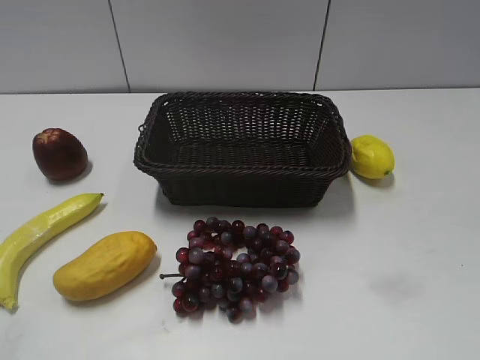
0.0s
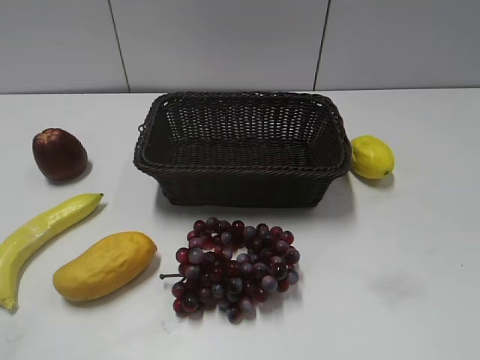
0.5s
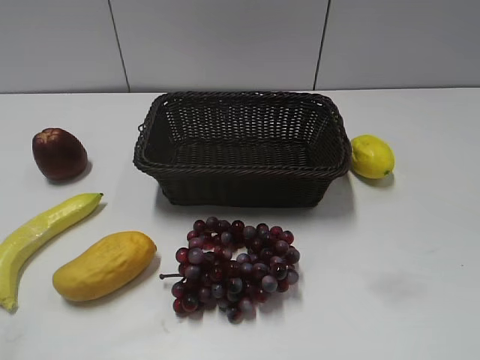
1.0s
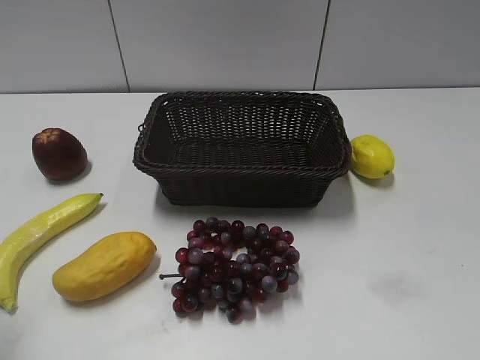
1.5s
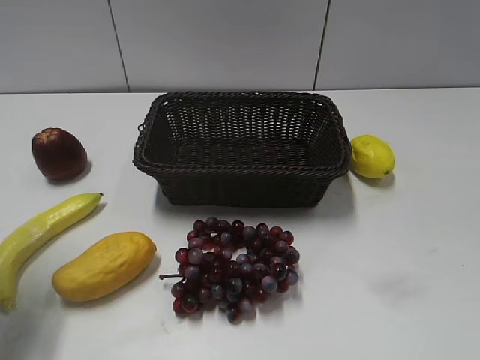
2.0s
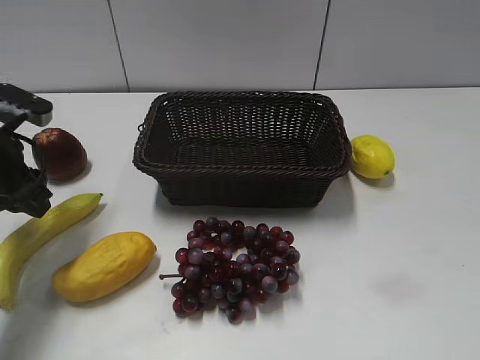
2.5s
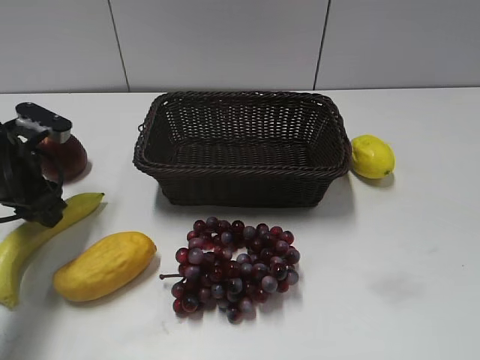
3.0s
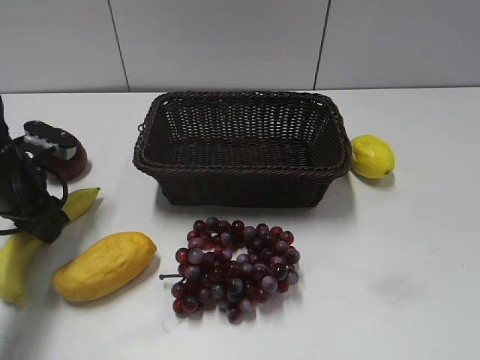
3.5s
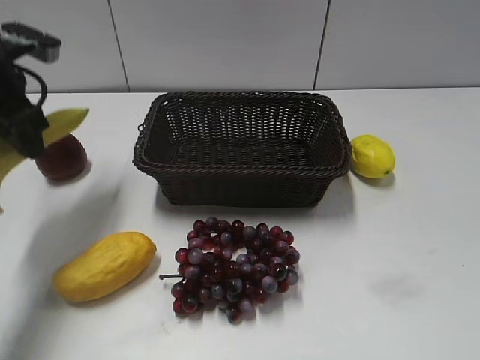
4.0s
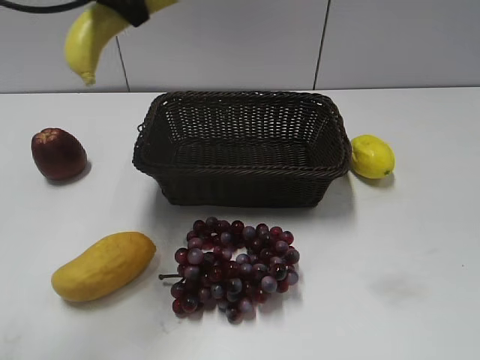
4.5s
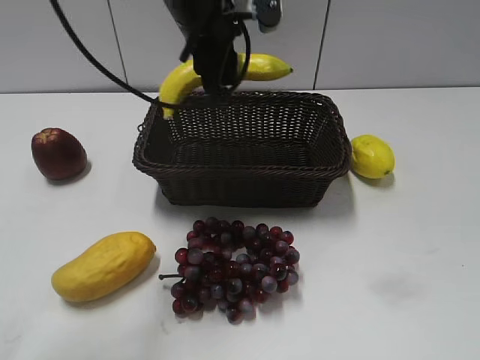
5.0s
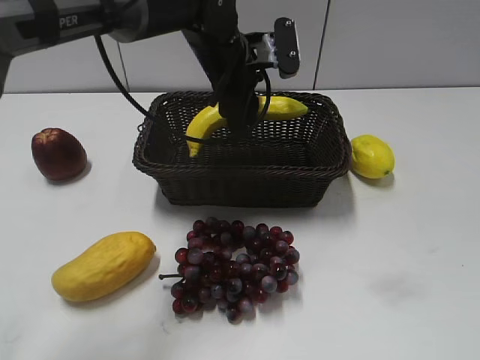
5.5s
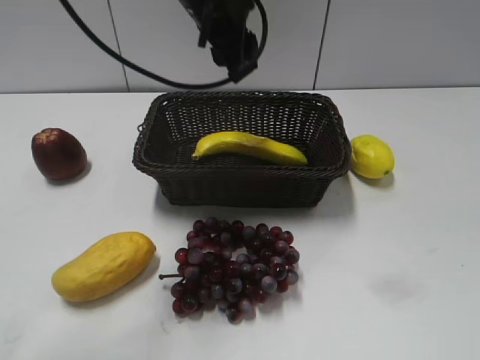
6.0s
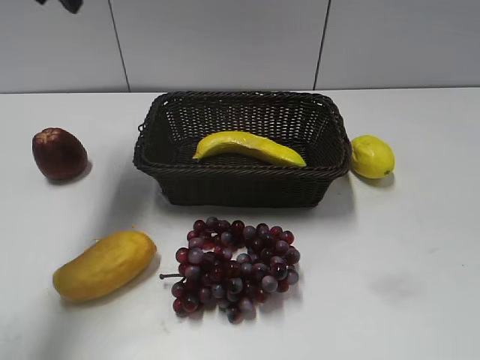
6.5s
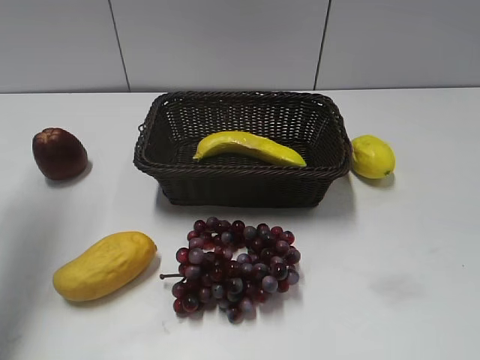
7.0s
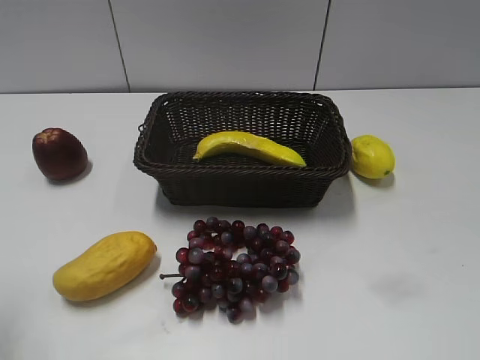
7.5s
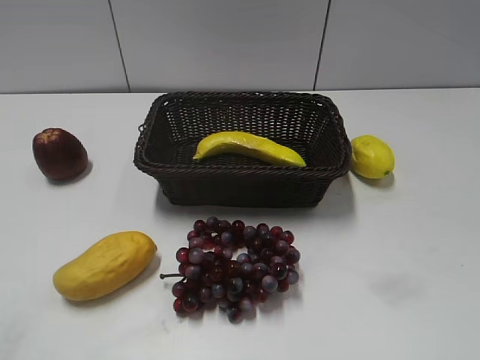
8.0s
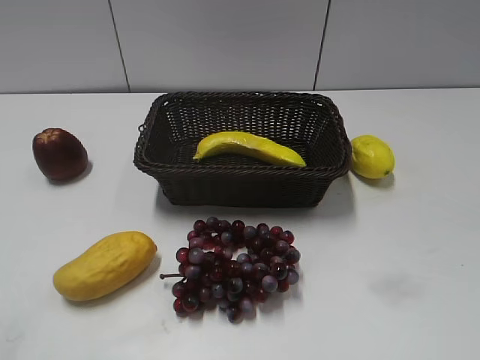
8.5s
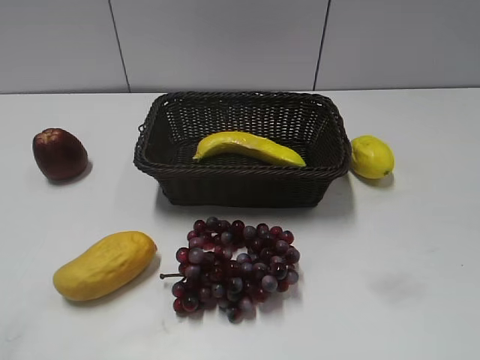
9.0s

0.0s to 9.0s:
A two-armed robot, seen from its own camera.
Step, 2.5s to 3.0s: Grasp the banana with left gripper.
Step, 3.5s to 5.5s: Place the banana in the basket with left gripper.
2.0s to 4.5s: The left gripper travels to the right, forward and upward by roughly 25 cm, and closes its fingers.
4.5s to 7.0s: The left gripper travels to the left by about 20 cm, and opens.
7.0s to 9.0s: The left gripper shifts approximately 35 cm backward.

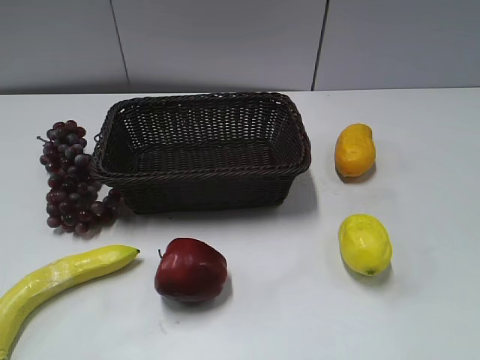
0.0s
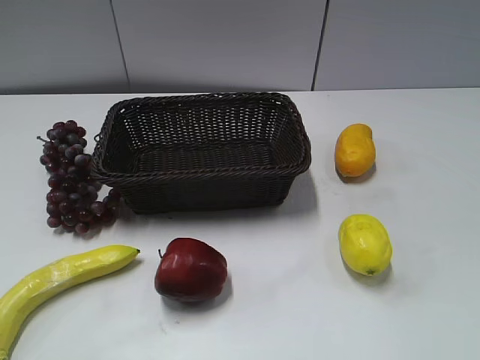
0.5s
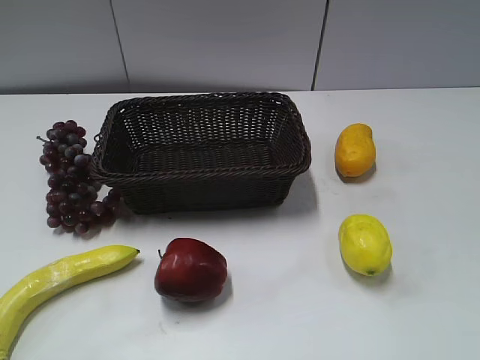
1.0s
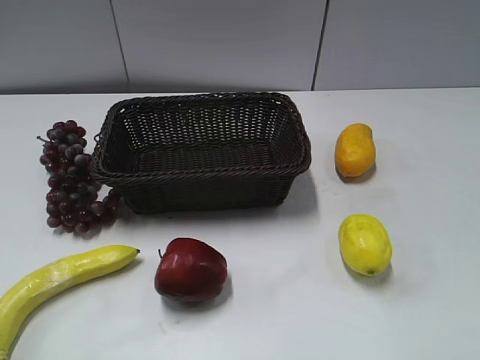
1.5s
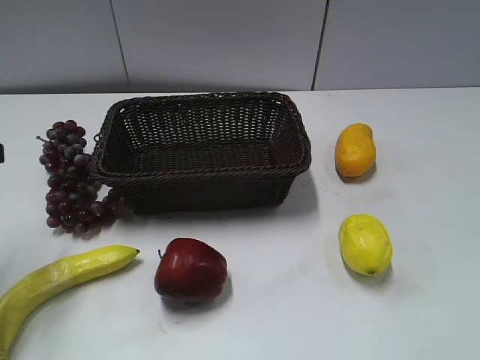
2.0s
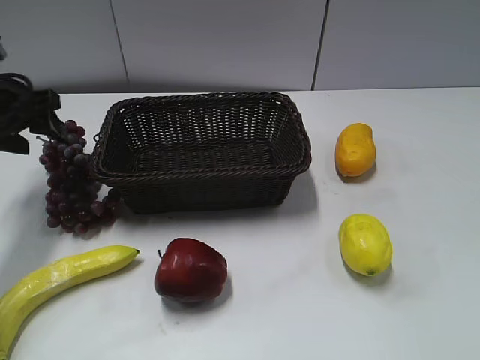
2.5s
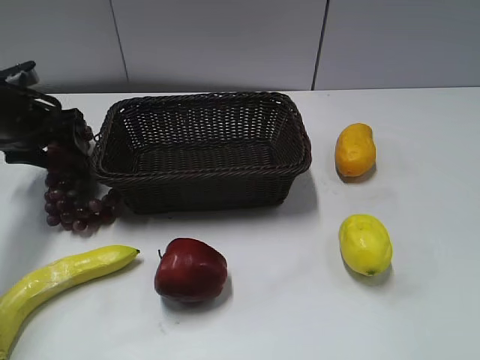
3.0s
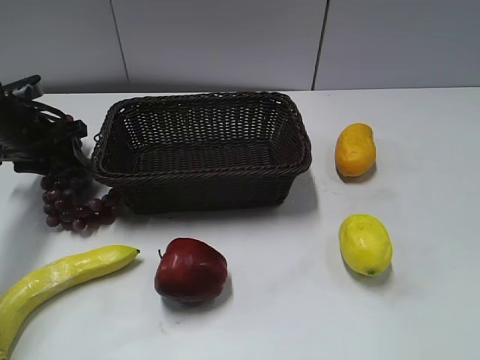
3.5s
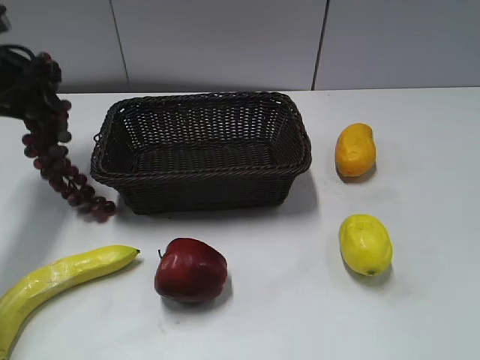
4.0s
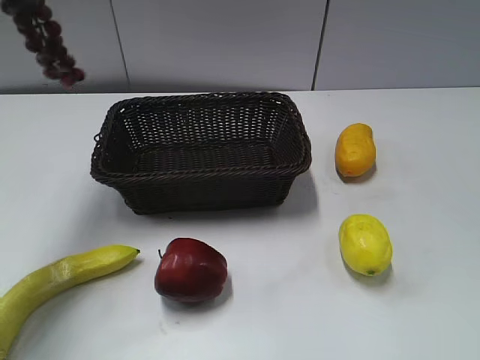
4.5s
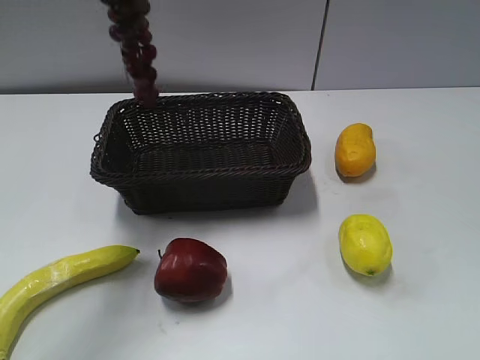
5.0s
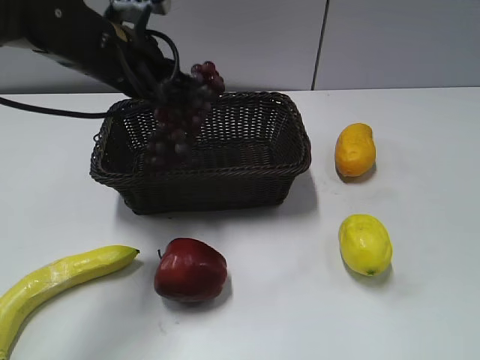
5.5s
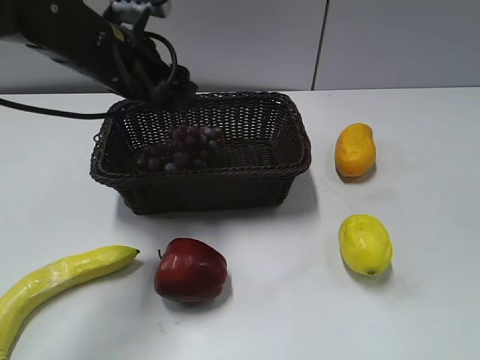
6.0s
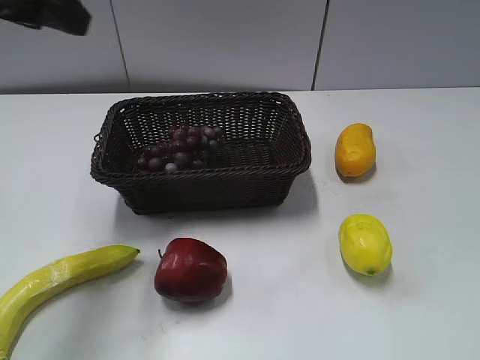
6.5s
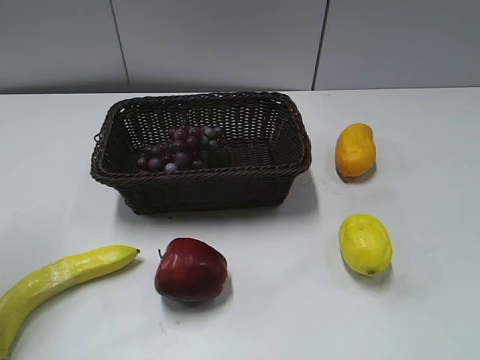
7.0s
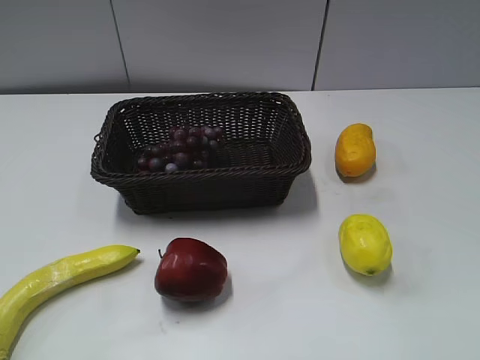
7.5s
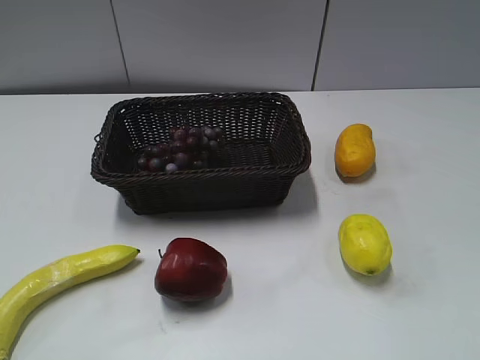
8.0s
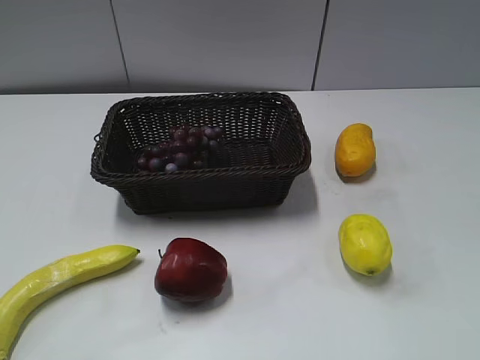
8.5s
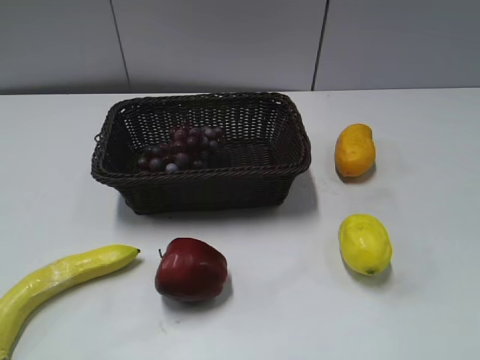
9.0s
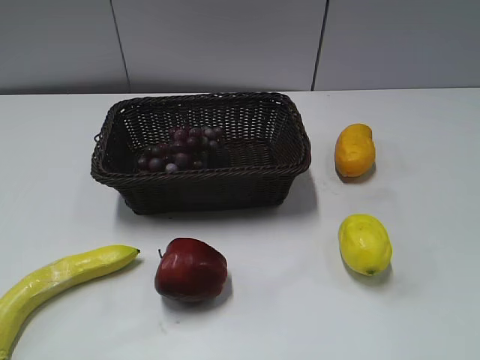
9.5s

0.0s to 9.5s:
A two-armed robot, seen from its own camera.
Step, 2.0s to 3.5s: Grasp the grape with left gripper.
Step, 4.0s to 6.0s: Place the grape in the basket with left gripper.
2.0s to 4.0s: The left gripper is displaced forward by some 15 cm, and closes its fingers.
4.0s to 5.5s: The left gripper heads to the right, covering roughly 15 cm, reaches some 20 cm upward, then returns, and closes up.
5.5s to 7.5s: The left gripper travels backward and to the left by roughly 35 cm, and opens.

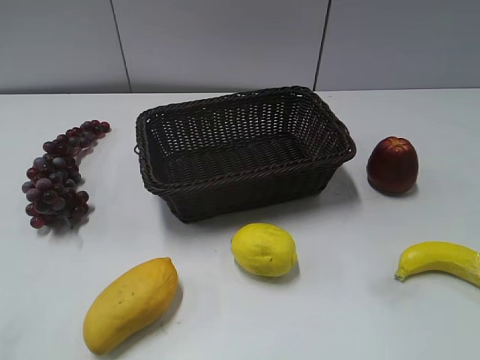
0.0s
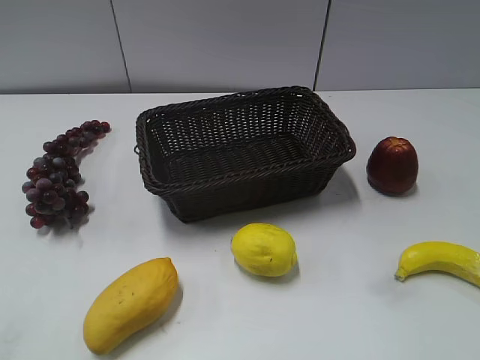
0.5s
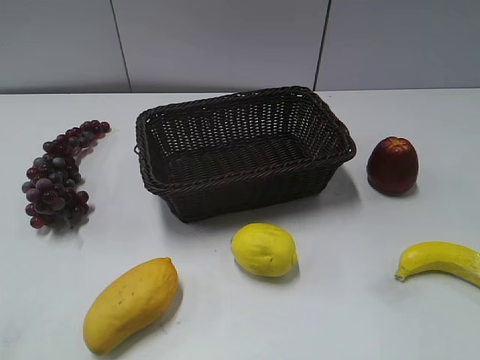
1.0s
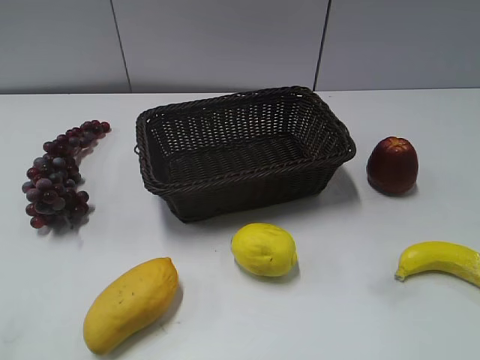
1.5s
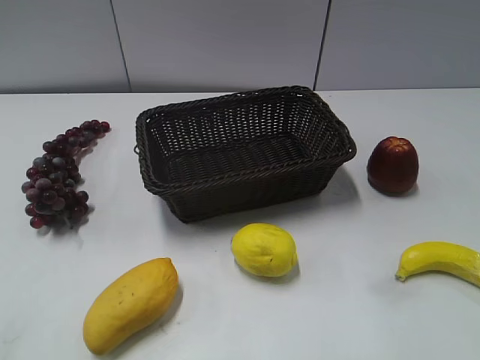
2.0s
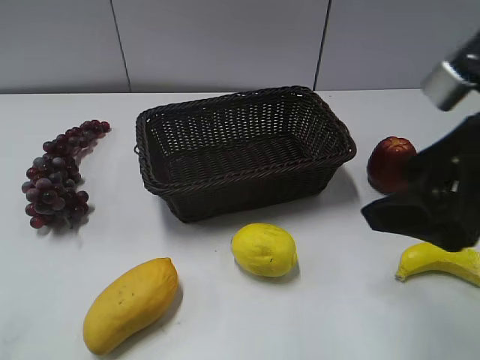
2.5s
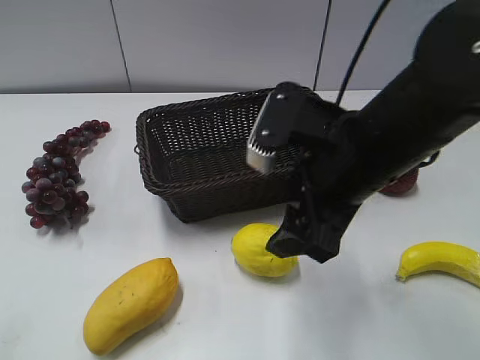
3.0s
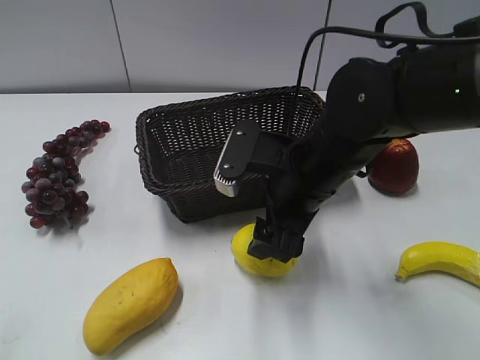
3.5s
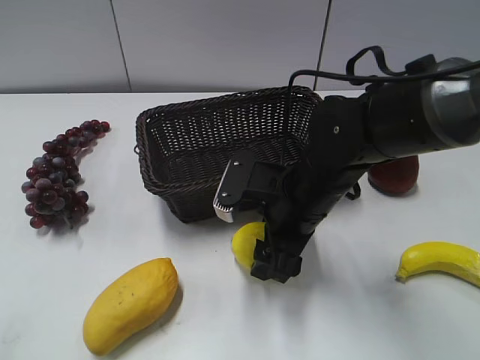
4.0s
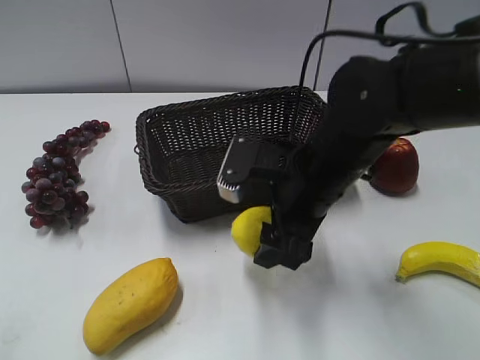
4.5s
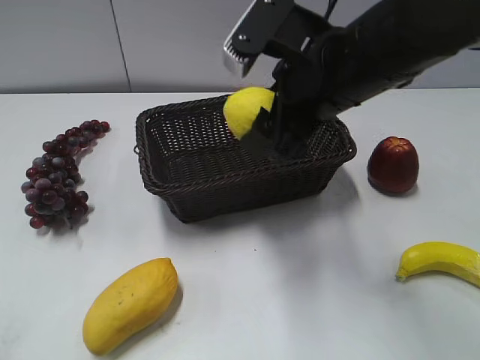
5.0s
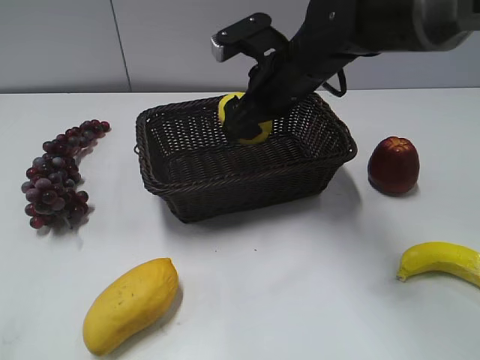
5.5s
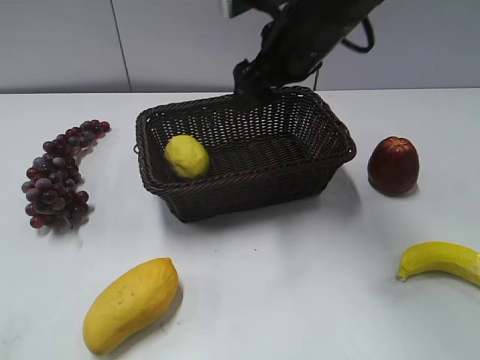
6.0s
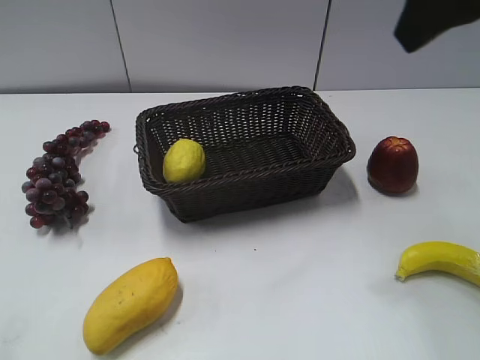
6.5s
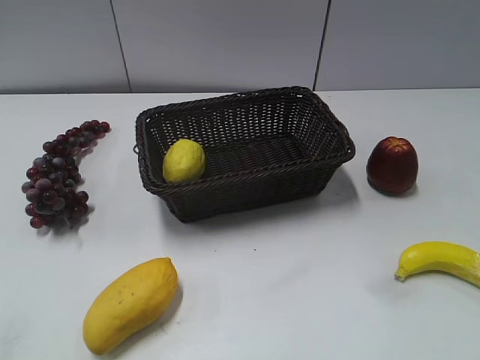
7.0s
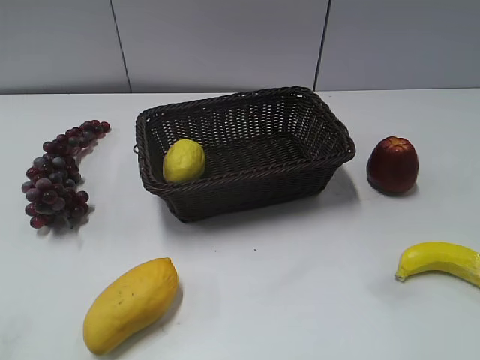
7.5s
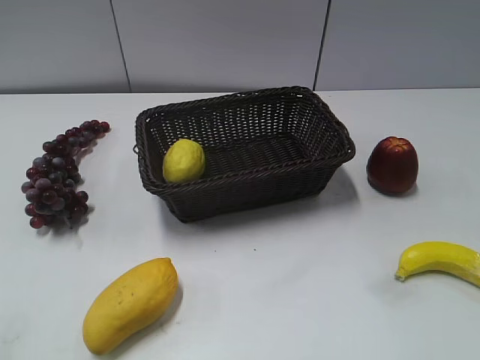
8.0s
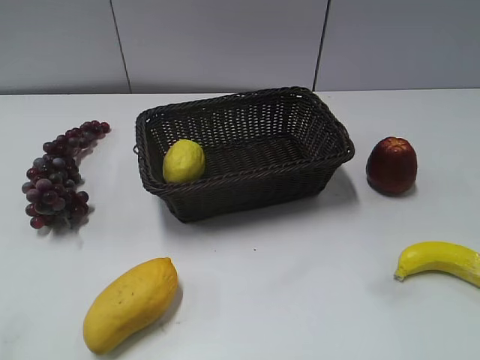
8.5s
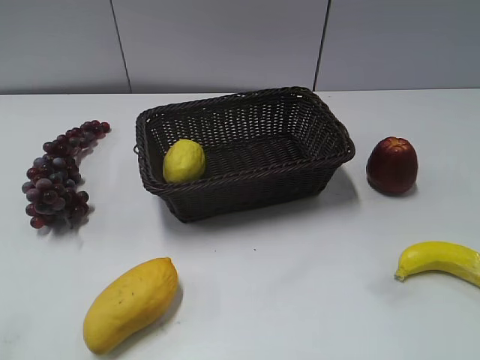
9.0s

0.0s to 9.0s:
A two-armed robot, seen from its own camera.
Step, 2.5s to 4.0s: Grasp the lemon with right gripper.
Step, 4.5s to 6.0s: Place the lemon in the basket with right gripper.
2.0s to 4.5s: The right gripper is displaced to the left, forward and downward by about 30 cm.
4.5s to 7.0s: The right gripper moves upward, to the right and backward, approximately 30 cm.
